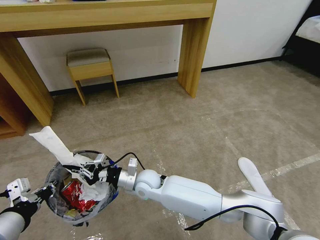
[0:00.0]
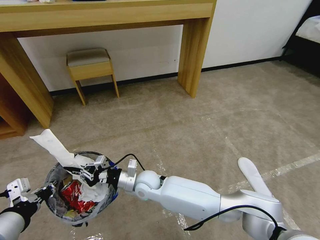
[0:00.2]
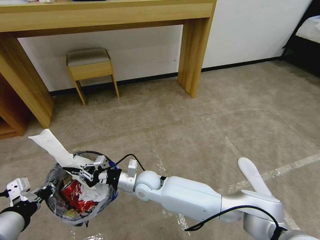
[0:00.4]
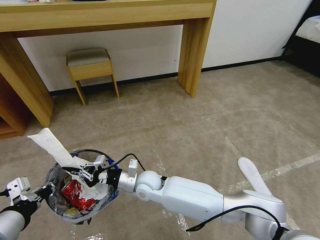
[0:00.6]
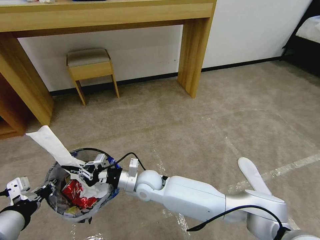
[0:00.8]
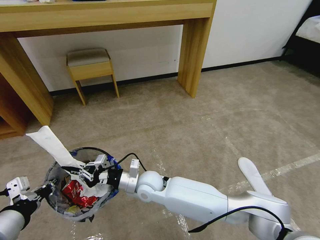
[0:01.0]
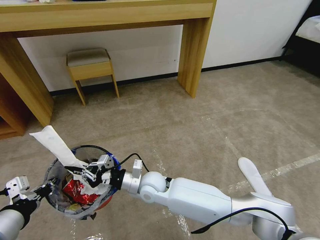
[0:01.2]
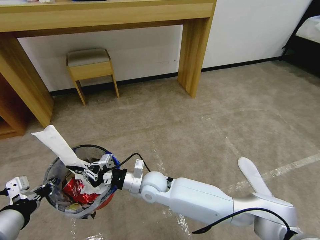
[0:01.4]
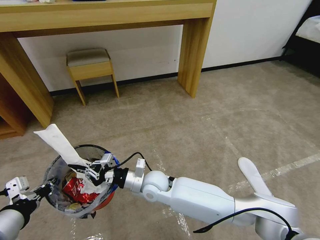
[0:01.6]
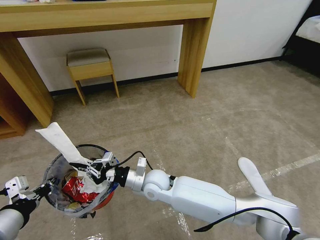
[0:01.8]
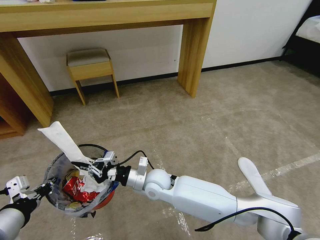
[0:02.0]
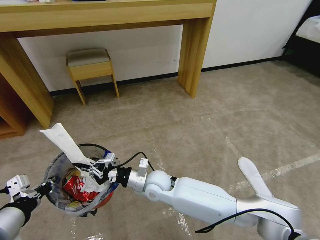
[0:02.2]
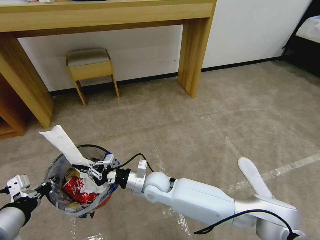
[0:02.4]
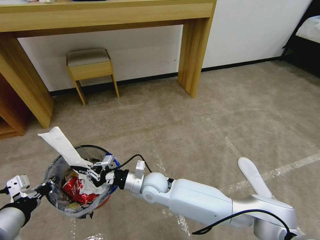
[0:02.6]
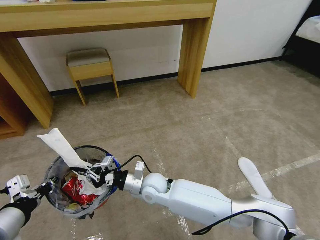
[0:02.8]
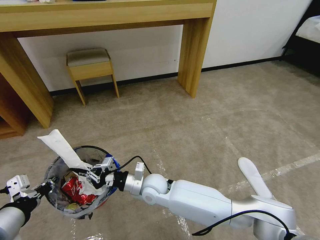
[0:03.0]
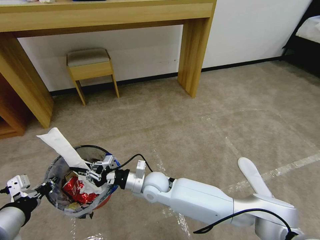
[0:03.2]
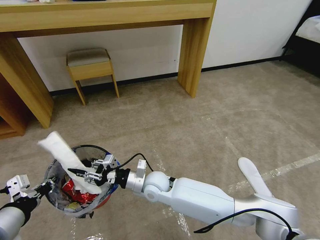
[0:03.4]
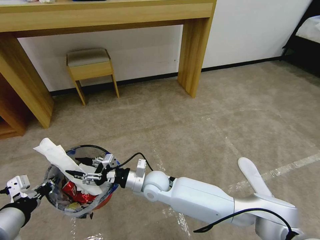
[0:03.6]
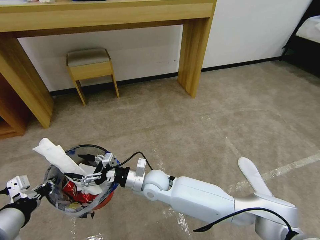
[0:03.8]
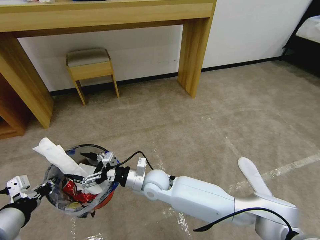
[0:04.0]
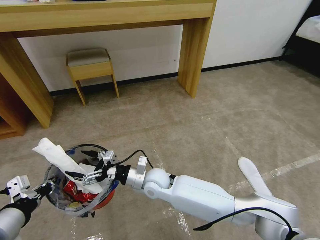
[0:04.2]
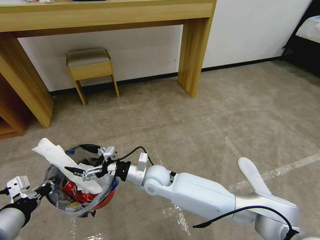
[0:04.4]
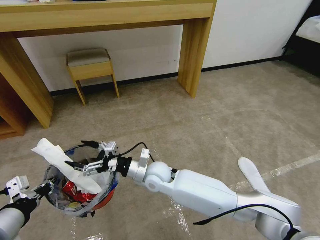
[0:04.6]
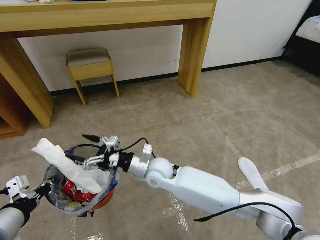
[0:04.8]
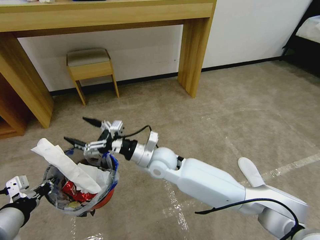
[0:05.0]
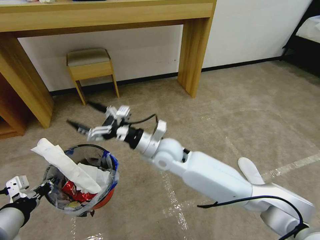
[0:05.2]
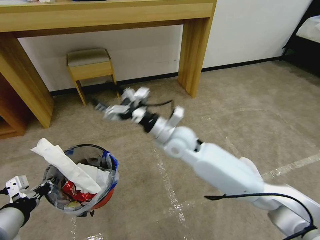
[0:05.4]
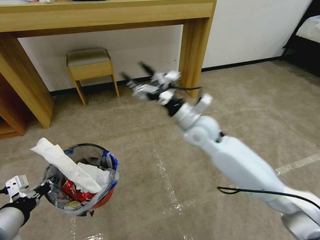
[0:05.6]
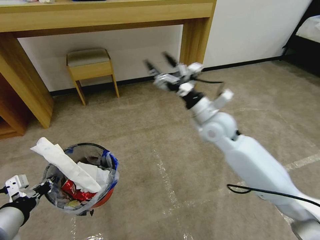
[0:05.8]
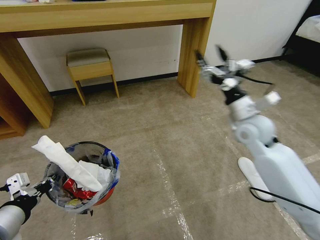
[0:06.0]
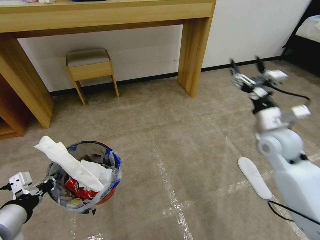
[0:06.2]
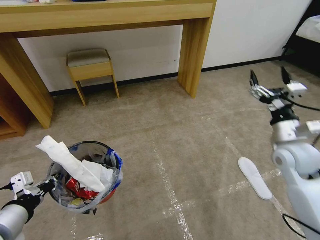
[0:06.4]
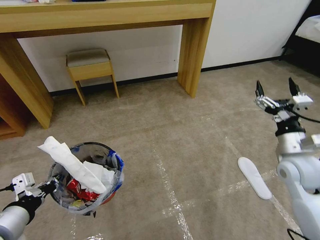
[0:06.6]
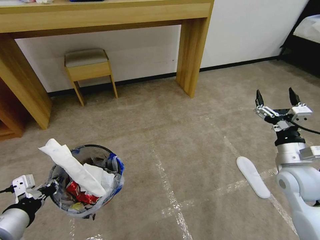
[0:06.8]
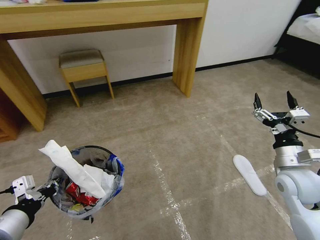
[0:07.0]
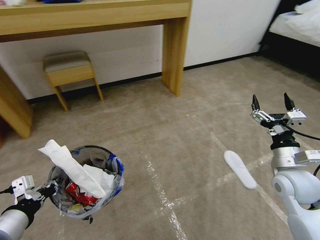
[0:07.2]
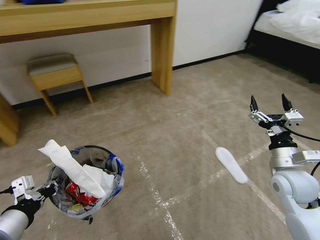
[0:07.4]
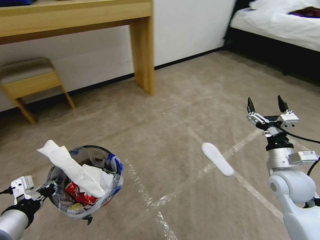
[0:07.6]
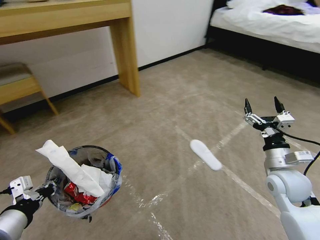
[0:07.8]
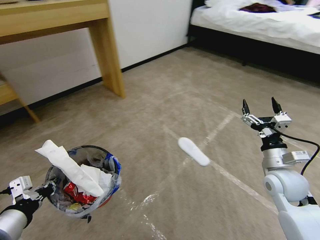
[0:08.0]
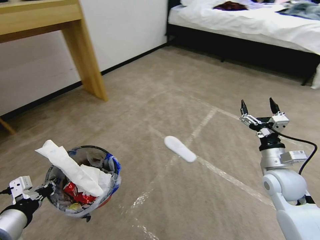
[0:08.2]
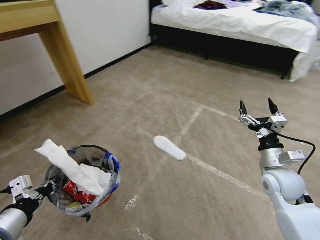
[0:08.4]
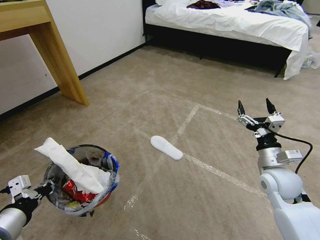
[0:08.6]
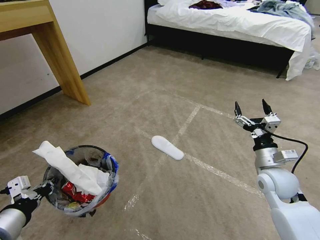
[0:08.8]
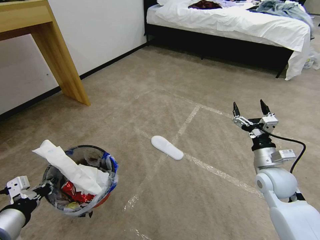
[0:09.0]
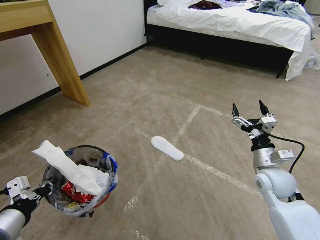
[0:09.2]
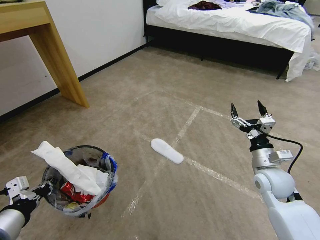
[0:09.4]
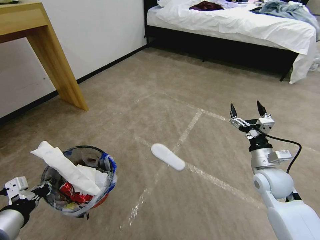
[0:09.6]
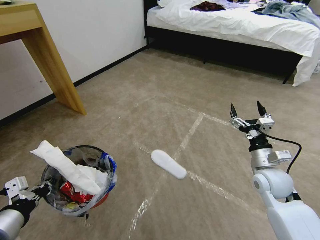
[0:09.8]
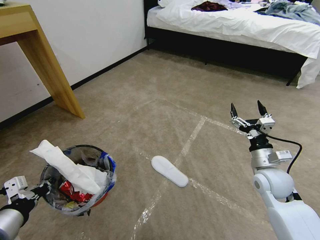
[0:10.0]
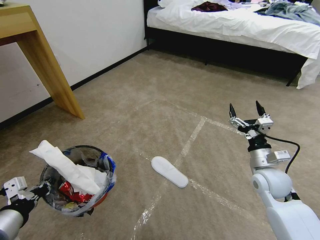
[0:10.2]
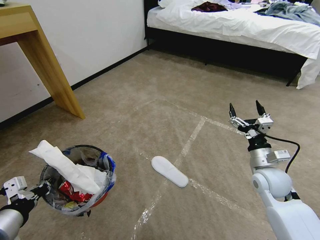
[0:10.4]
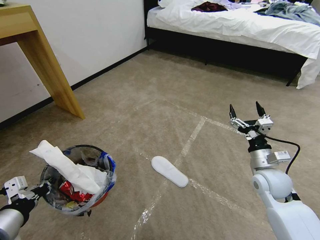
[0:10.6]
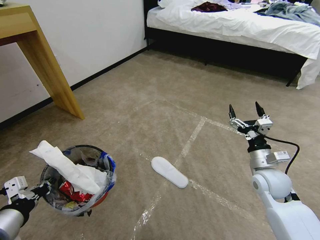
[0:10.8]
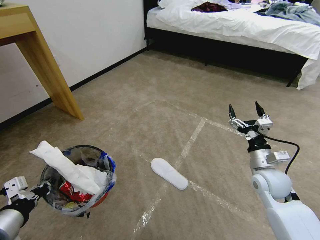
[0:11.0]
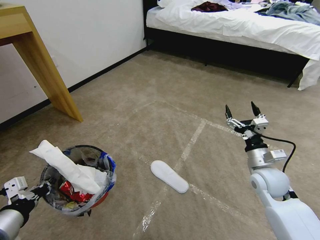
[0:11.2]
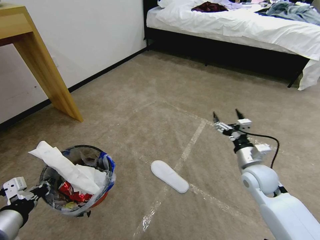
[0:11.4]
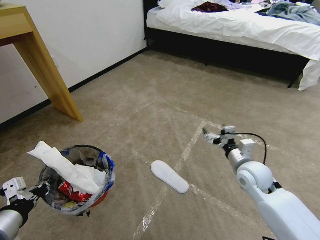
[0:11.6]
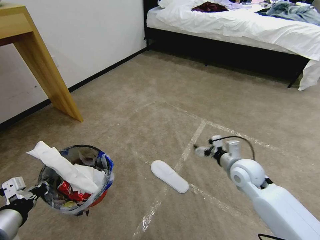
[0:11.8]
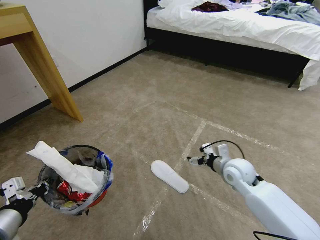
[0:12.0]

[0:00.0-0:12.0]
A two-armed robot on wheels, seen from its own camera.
Task of the whole recording: Pick up the trash bin and place the garbage on the floor into it.
0:00.0 to 0:03.0: There are only small adjustments of the grippers.
0:03.0 to 0:04.4: The right gripper opens.
0:04.4 to 0:06.0: The right gripper moves to the right and upward, approximately 35 cm.
0:06.0 to 0:07.6: The right gripper shifts roughly 20 cm backward, to the right and downward.
0:10.4 to 0:12.0: The right gripper goes approximately 10 cm to the left.

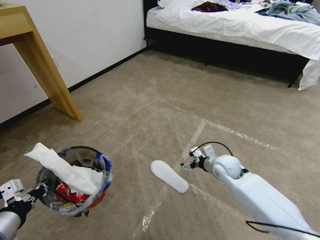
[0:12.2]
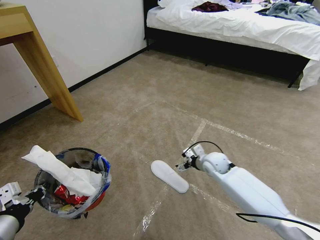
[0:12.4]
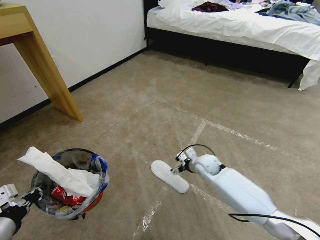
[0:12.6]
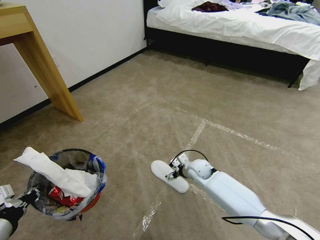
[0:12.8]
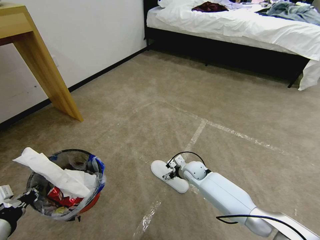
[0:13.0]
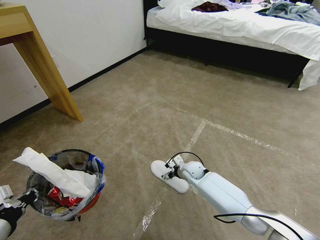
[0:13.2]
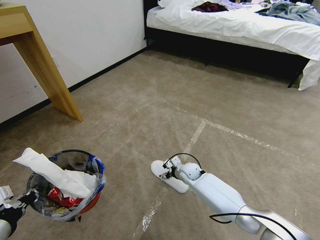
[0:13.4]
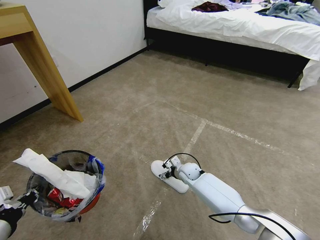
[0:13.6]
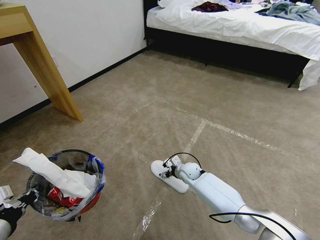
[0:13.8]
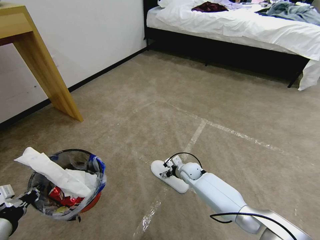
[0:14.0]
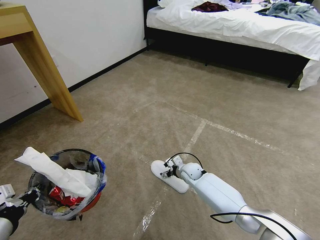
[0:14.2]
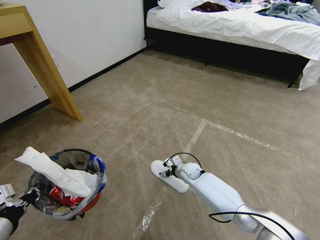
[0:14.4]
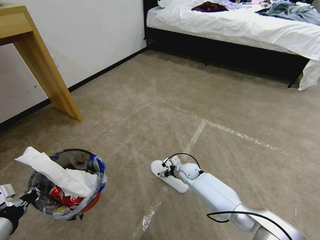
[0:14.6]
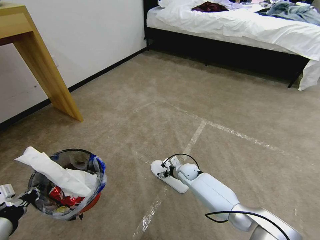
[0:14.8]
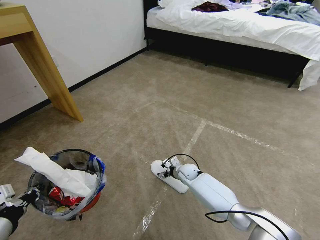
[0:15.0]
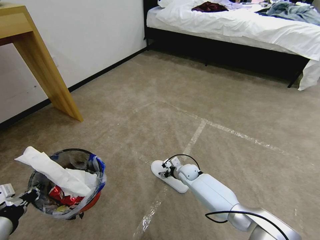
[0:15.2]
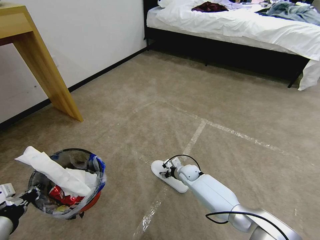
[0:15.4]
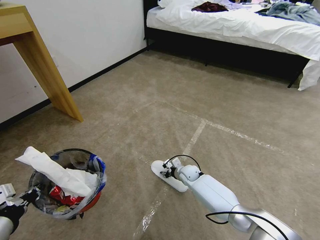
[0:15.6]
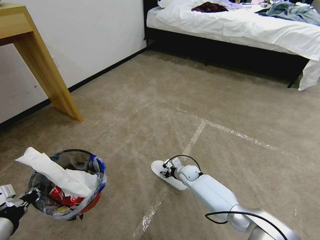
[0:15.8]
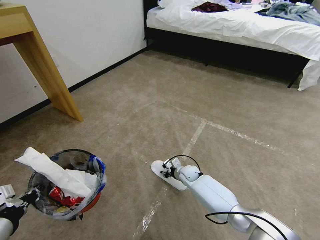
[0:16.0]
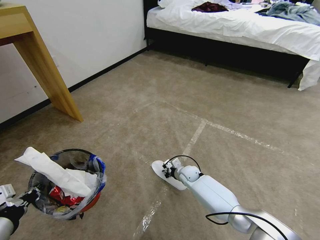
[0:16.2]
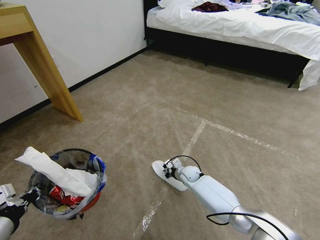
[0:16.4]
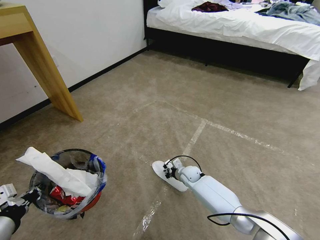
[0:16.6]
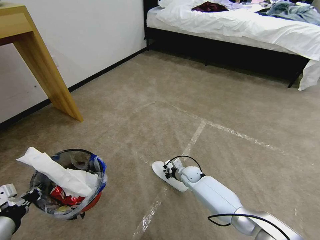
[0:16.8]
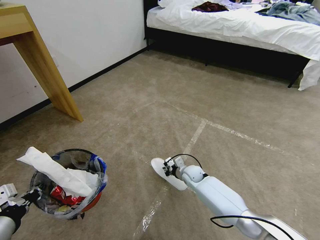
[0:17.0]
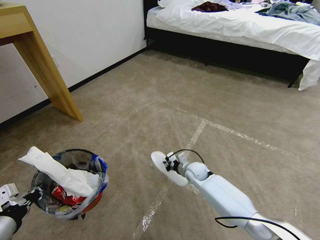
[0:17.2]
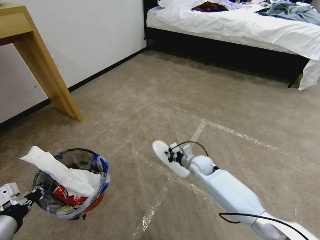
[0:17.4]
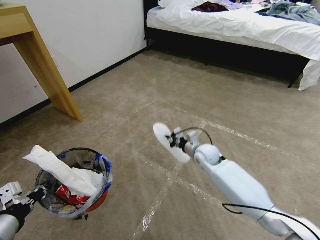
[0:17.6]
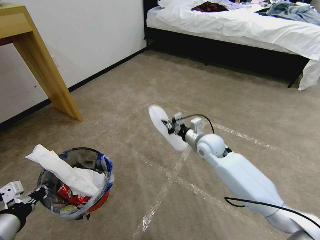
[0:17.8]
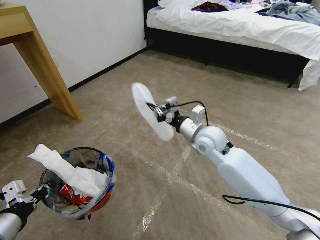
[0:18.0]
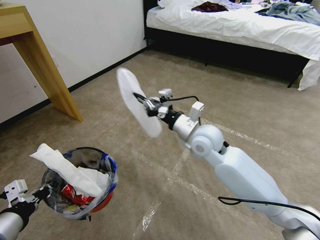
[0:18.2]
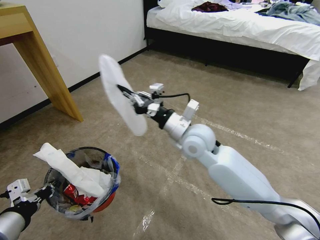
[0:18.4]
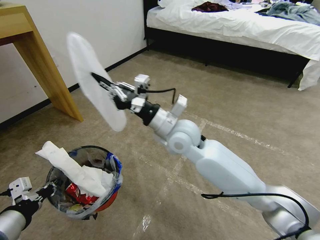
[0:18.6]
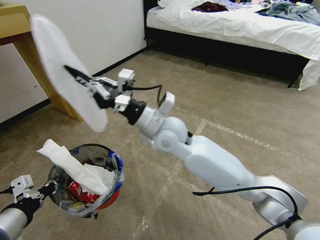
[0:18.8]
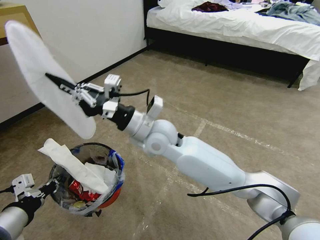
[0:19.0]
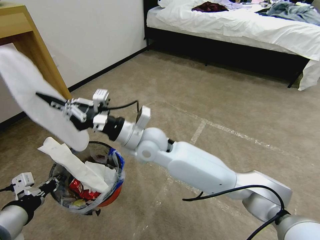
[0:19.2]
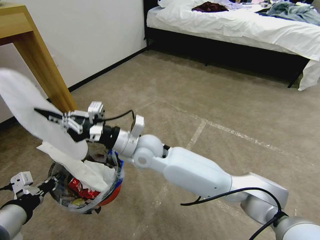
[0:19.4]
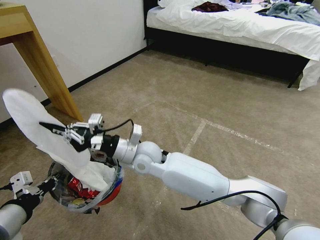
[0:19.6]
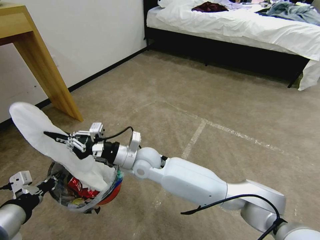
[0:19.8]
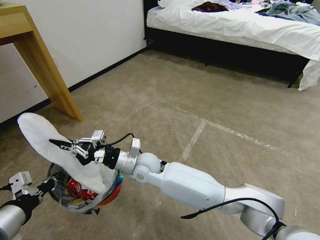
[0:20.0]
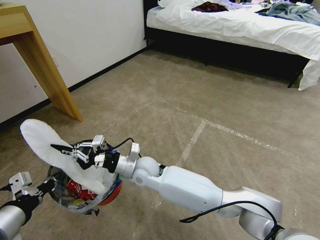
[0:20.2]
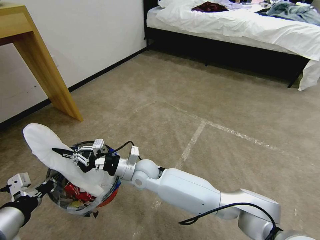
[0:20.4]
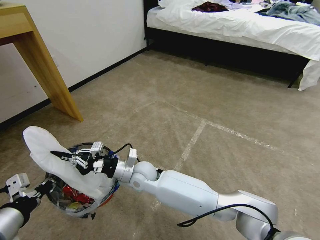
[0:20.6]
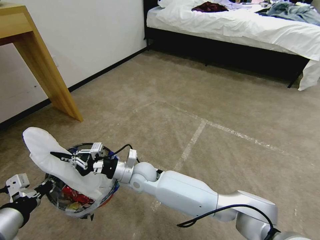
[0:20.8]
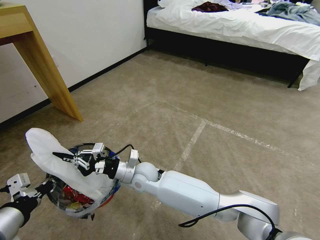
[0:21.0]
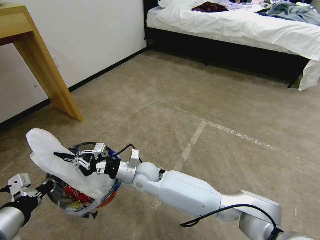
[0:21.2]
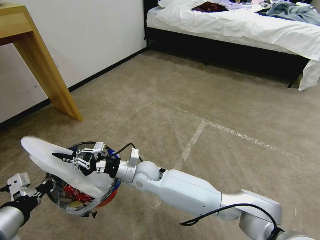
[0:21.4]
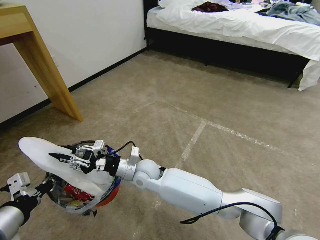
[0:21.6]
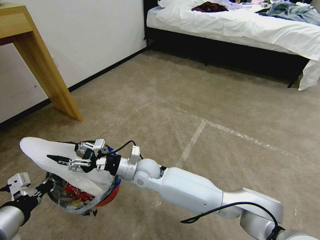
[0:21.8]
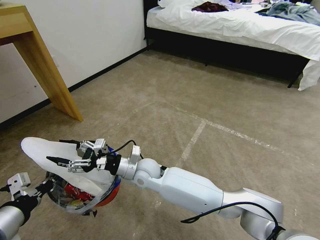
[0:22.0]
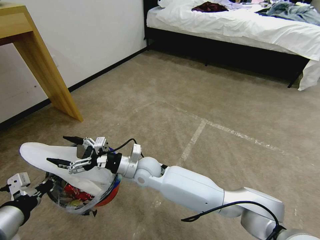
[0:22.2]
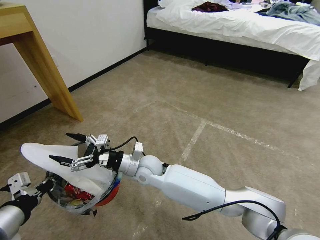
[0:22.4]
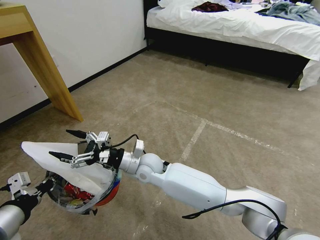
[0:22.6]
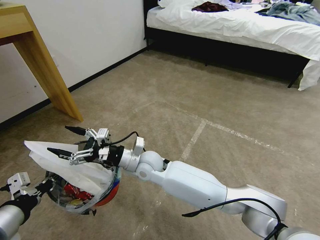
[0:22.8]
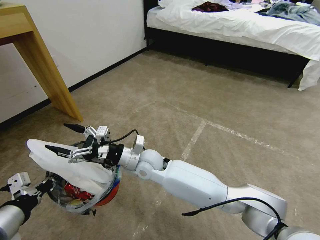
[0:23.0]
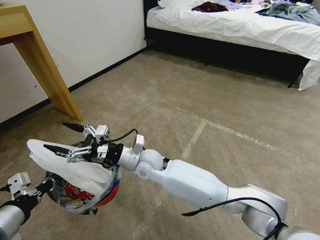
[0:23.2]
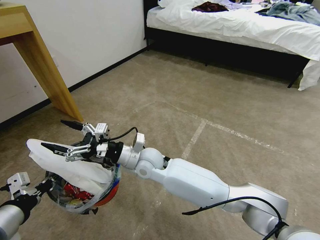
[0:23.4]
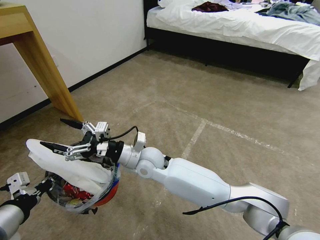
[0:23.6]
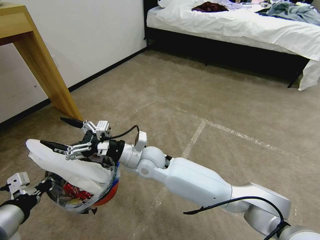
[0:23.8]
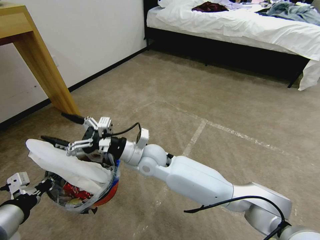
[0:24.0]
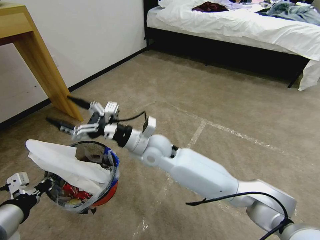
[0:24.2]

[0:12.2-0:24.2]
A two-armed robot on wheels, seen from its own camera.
Task of the whole recording: Pick up the trash bin and place the garbage on the floor into it.
0:12.2 to 0:13.8: The right gripper shifts some 15 cm downward and to the left.
0:13.8 to 0:15.2: There are only small adjustments of the grippers.
0:15.2 to 0:16.6: The right gripper closes.
0:16.6 to 0:18.2: The right gripper goes some 30 cm upward.
0:18.2 to 0:19.8: The right gripper is displaced to the left and downward by about 20 cm.
0:19.8 to 0:21.2: The right gripper is displaced downward by about 5 cm.
0:21.2 to 0:22.6: The right gripper opens.
0:22.6 to 0:24.2: The right gripper shifts approximately 10 cm upward.
